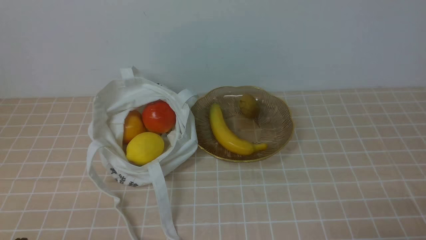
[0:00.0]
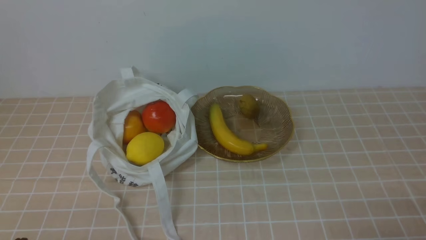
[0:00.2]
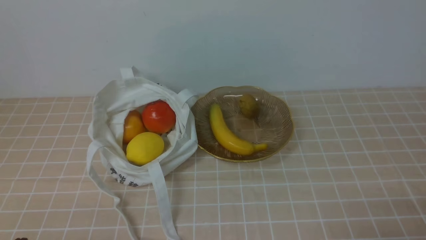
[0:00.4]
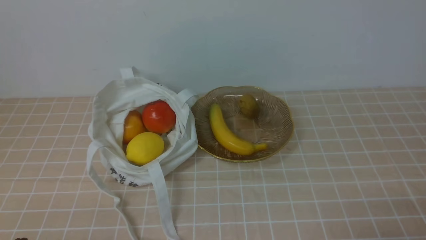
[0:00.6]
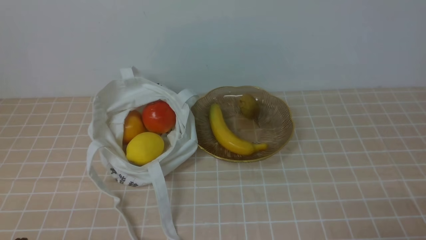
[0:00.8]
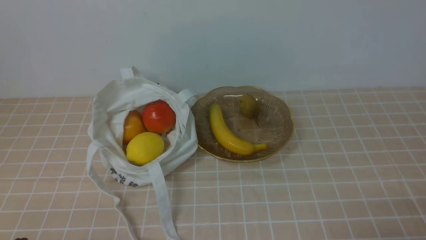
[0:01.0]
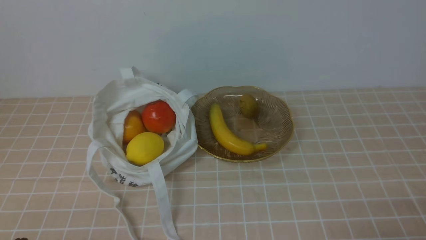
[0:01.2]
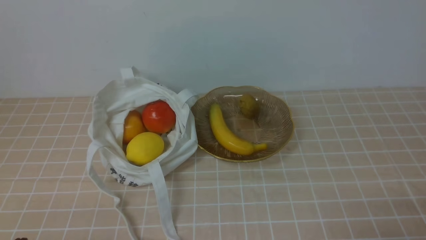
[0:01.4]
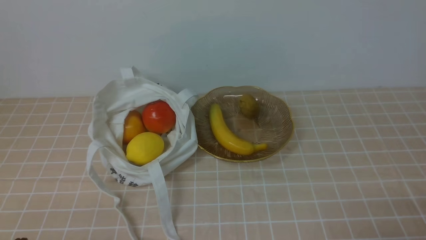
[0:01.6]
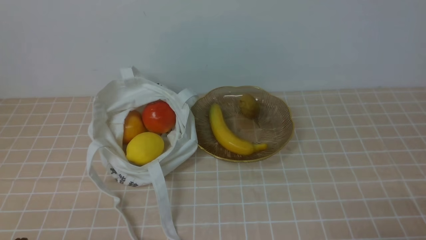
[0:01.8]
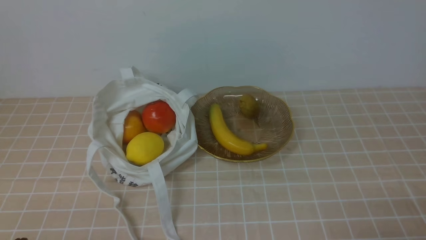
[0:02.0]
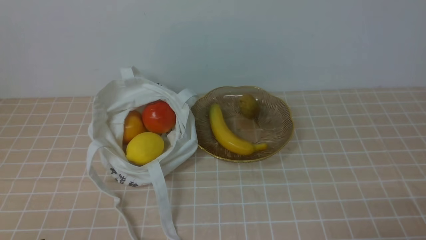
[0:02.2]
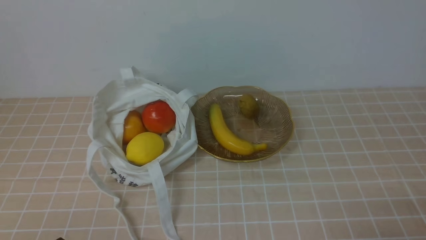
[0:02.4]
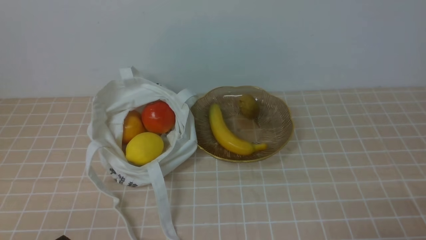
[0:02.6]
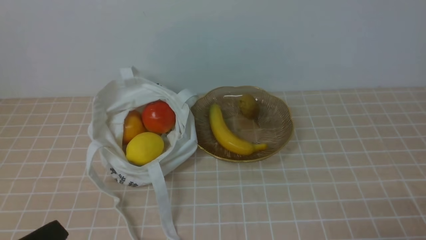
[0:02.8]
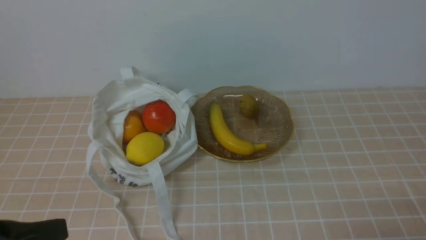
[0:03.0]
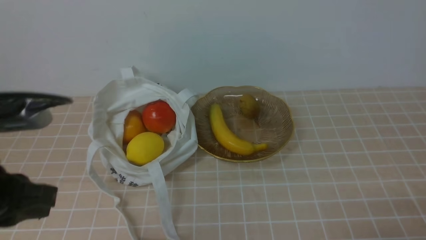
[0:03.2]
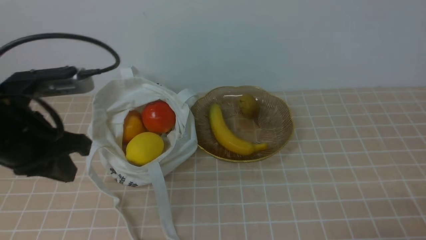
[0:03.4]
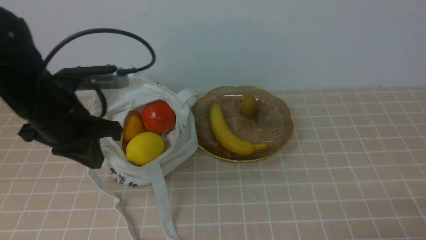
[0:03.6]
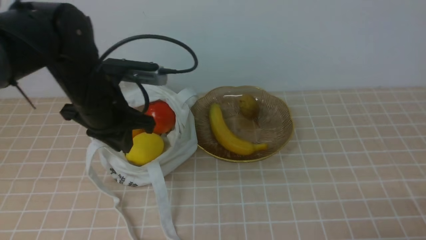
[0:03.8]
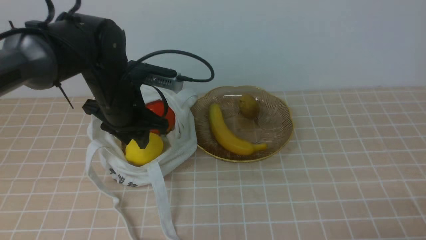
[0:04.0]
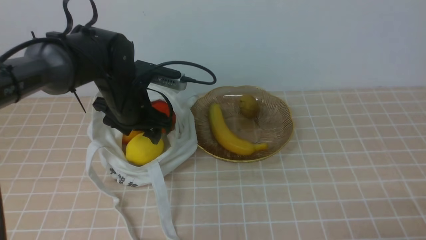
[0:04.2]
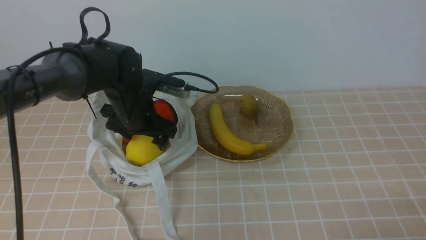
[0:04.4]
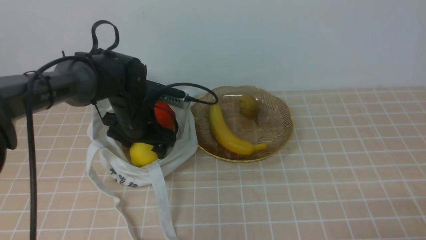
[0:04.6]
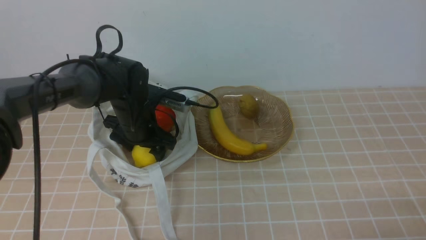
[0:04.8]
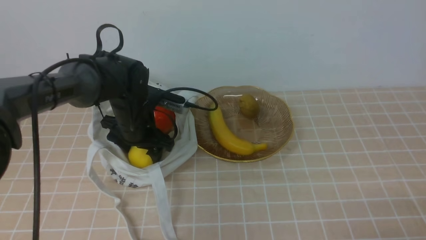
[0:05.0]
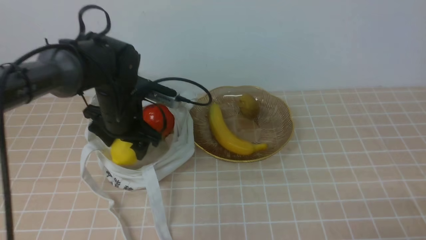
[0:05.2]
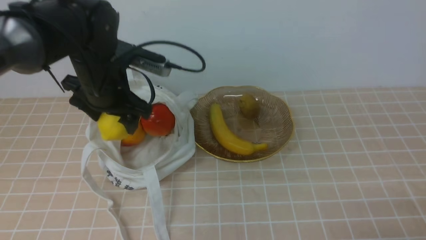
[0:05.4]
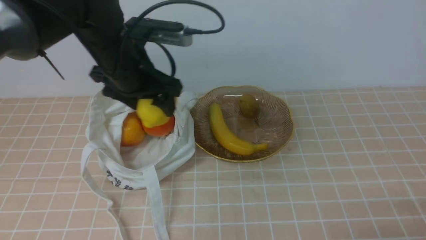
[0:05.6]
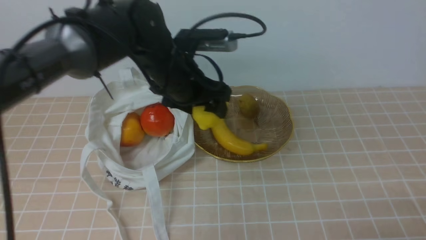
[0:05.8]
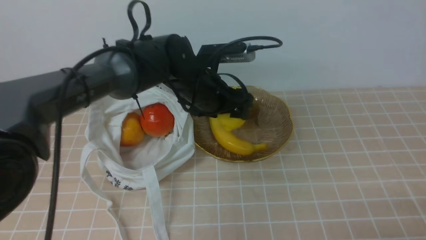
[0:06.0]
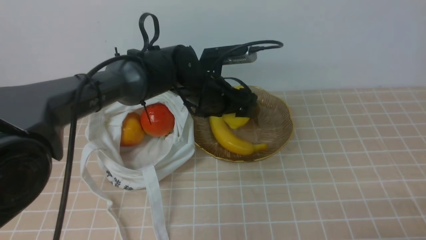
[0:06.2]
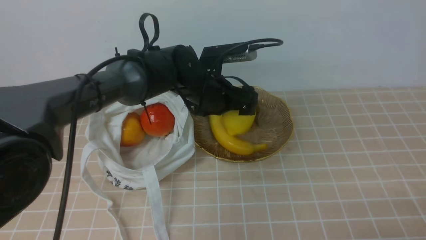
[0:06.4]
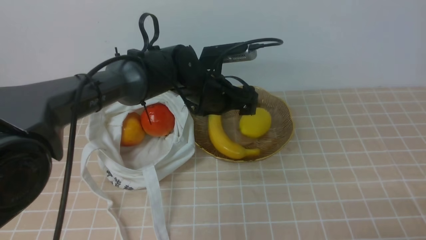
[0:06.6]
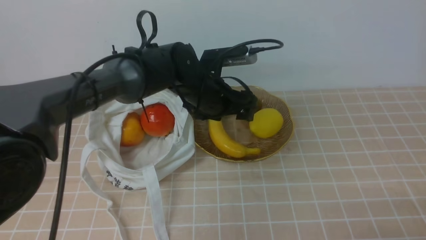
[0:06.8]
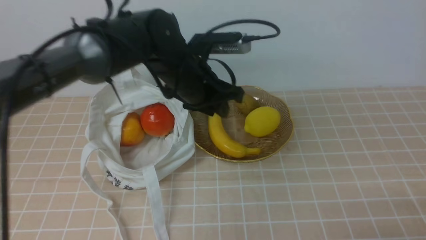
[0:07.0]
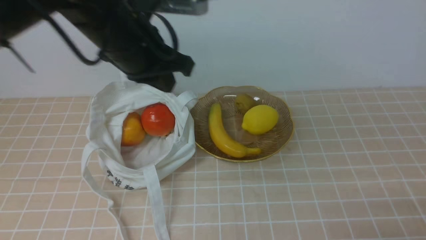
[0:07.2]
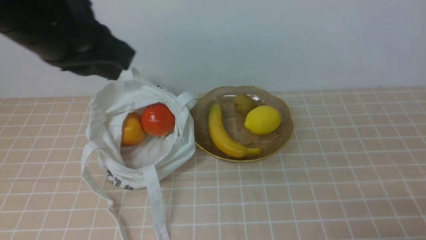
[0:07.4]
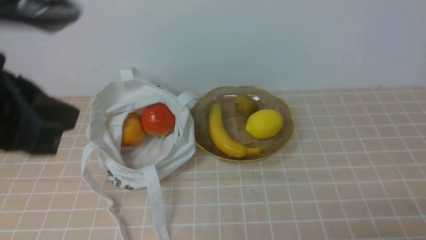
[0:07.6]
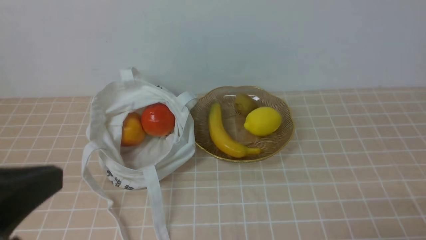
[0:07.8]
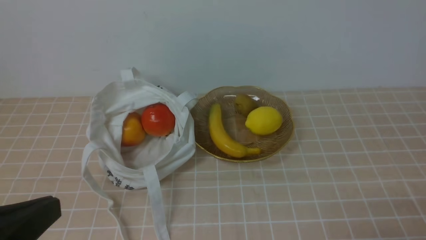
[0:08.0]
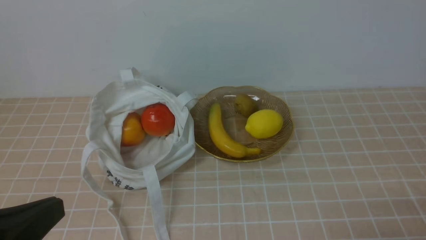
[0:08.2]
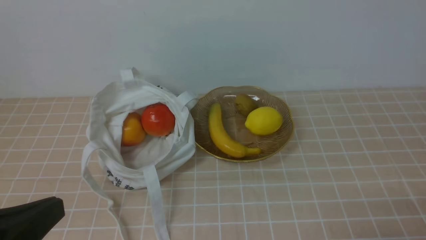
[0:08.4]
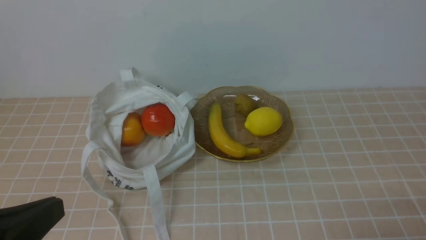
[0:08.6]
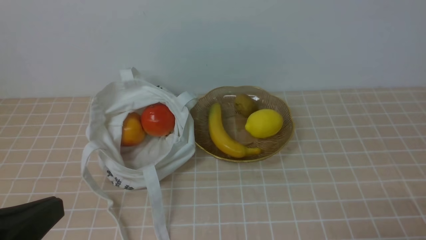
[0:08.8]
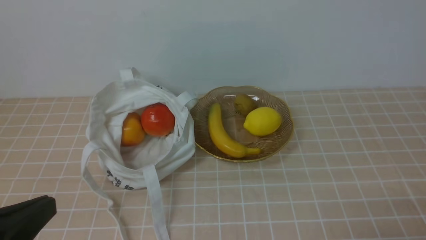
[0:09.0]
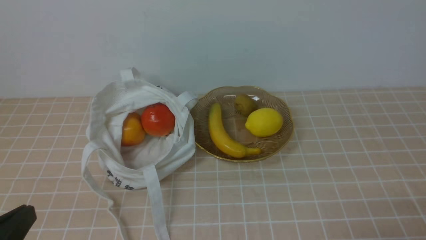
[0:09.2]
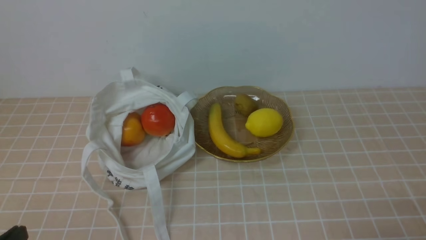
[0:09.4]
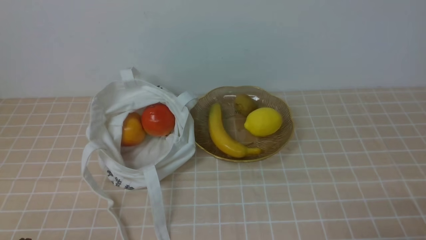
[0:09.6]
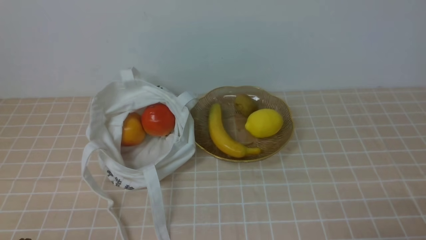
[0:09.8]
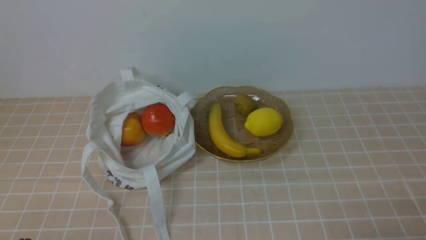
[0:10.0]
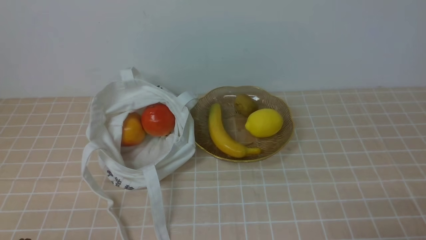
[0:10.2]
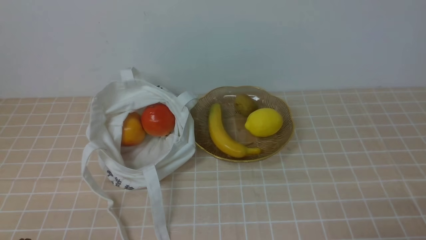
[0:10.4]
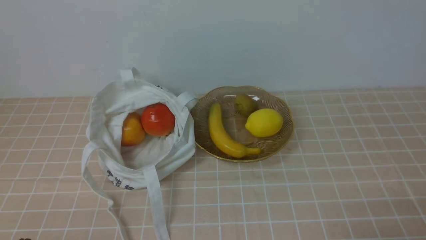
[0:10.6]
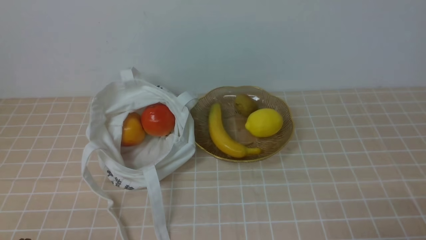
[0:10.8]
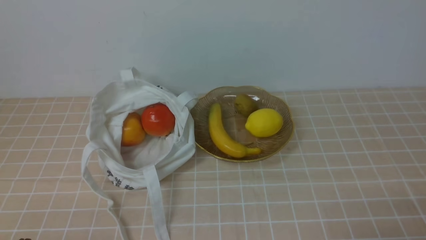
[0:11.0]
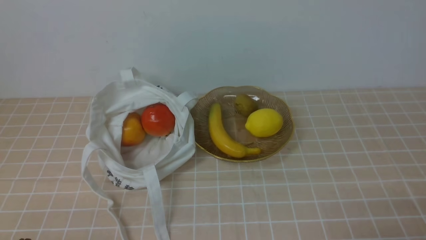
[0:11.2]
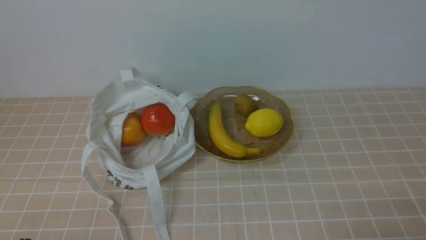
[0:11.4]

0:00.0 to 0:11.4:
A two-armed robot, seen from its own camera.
Step, 0:00.0 to 0:05.0: use the left arm to grab a lemon from the bag.
Step, 0:05.2 to 0:06.6: use the left arm to put the lemon into the empty plate on the right.
0:00.0 to 0:01.4: Both grippers stay put.
0:02.8 to 0:04.2: The left gripper shifts about 35 cm forward, and opens up.
0:04.2 to 0:05.6: The left gripper travels upward by approximately 5 cm.
0:05.6 to 0:07.2: The left gripper heads upward and backward, covering roughly 10 cm, and closes its fingers.
0:07.2 to 0:08.6: The left gripper shifts roughly 30 cm backward and to the left.
0:08.6 to 0:10.0: The left gripper is displaced downward by some 15 cm.
0:10.0 to 0:11.4: The two grippers keep their place.

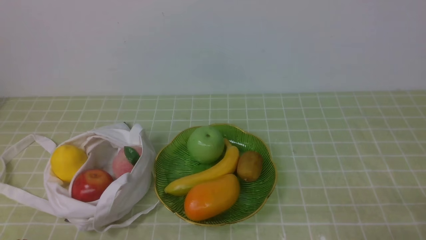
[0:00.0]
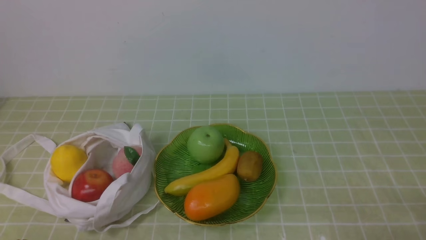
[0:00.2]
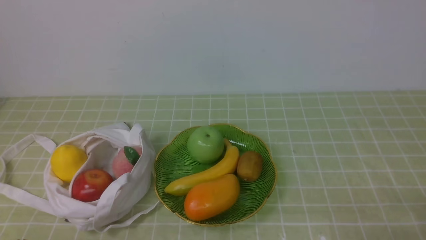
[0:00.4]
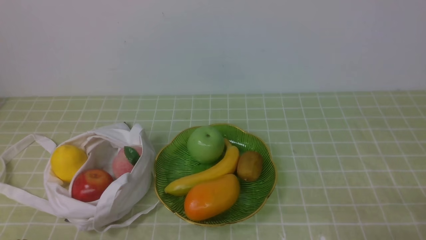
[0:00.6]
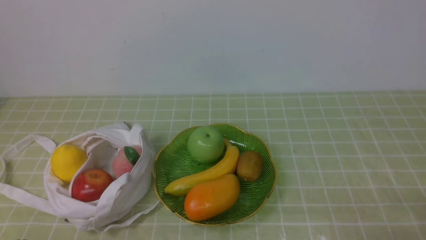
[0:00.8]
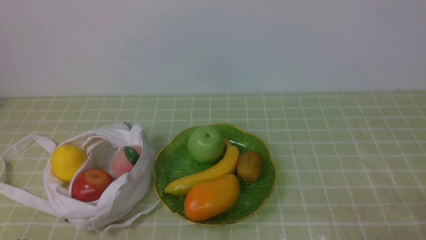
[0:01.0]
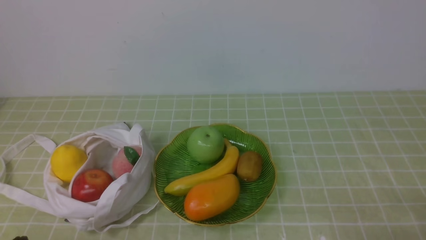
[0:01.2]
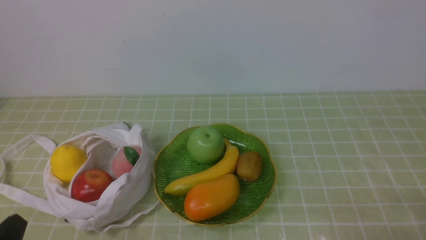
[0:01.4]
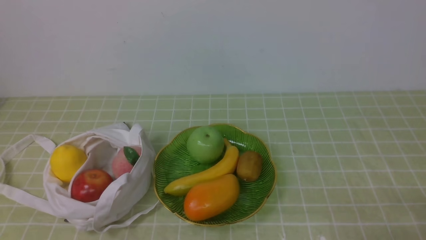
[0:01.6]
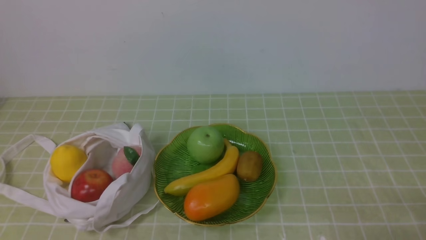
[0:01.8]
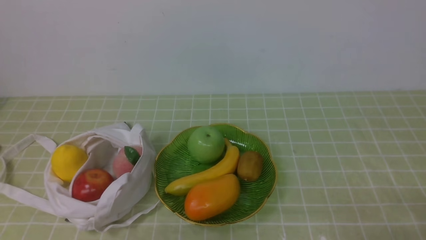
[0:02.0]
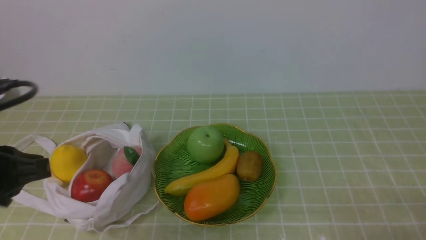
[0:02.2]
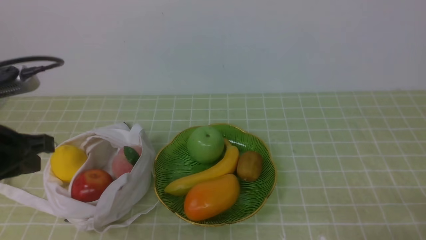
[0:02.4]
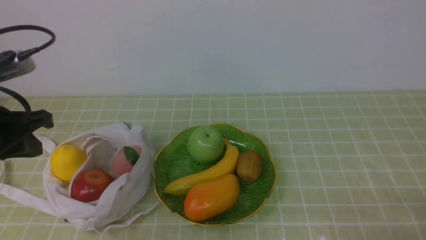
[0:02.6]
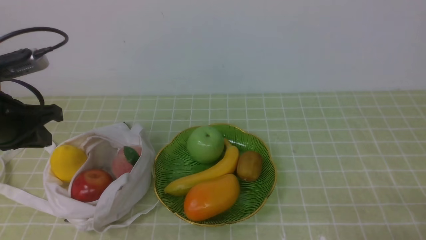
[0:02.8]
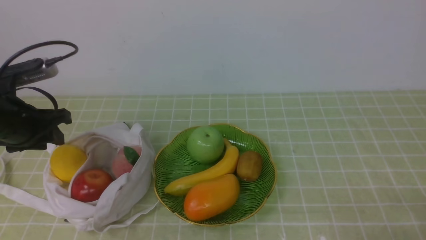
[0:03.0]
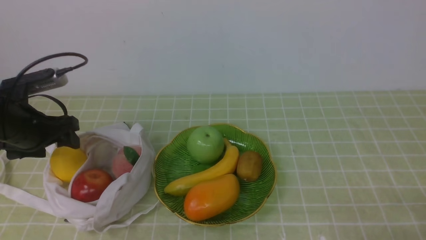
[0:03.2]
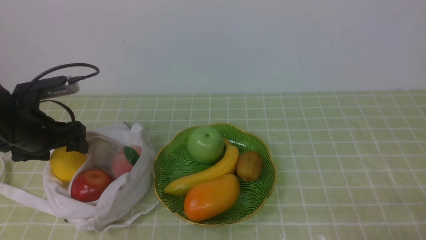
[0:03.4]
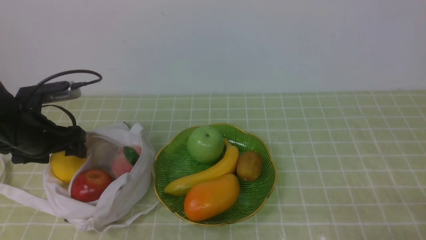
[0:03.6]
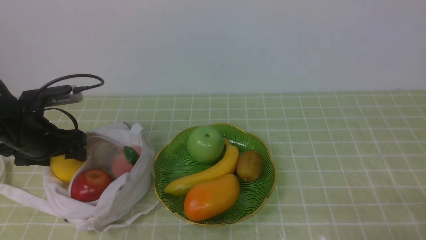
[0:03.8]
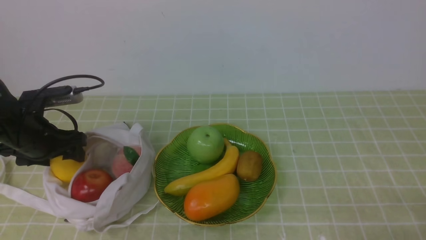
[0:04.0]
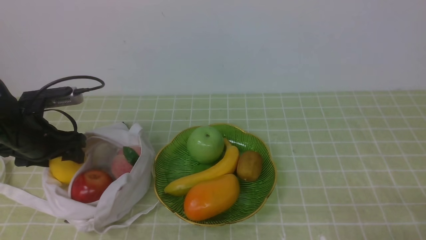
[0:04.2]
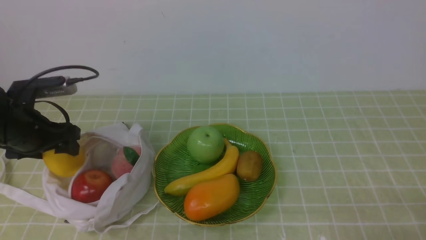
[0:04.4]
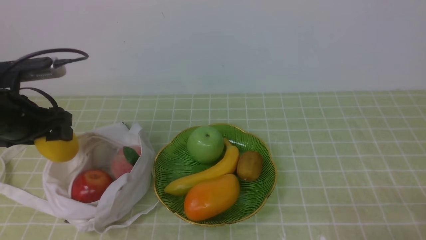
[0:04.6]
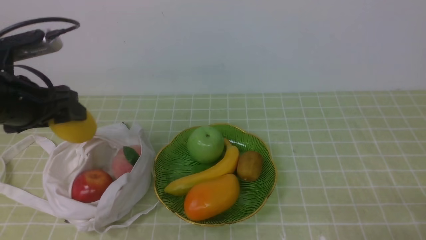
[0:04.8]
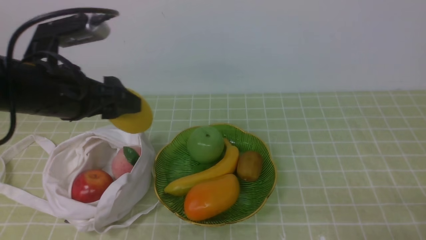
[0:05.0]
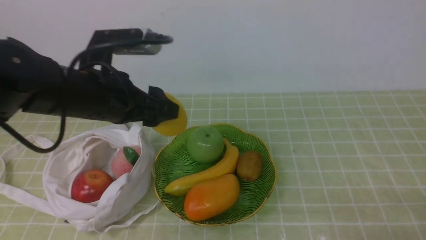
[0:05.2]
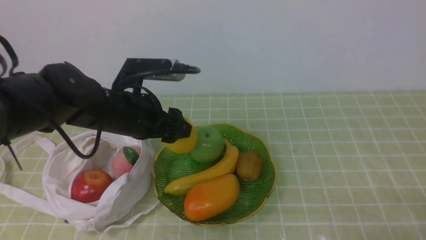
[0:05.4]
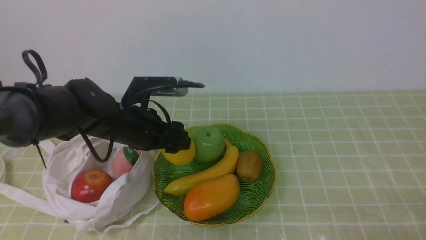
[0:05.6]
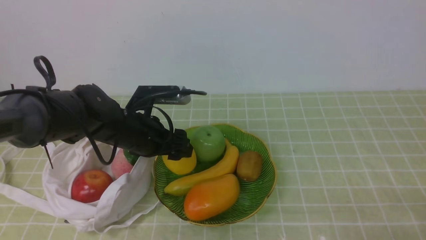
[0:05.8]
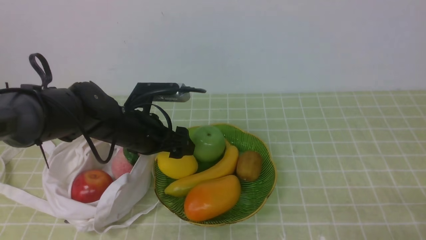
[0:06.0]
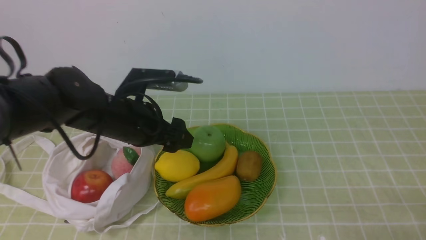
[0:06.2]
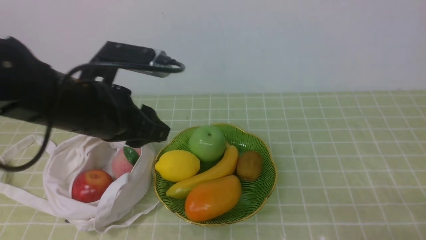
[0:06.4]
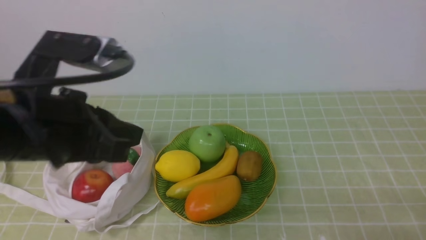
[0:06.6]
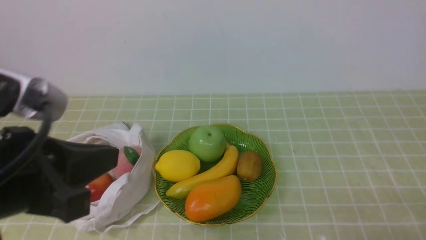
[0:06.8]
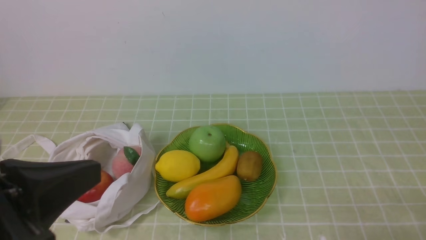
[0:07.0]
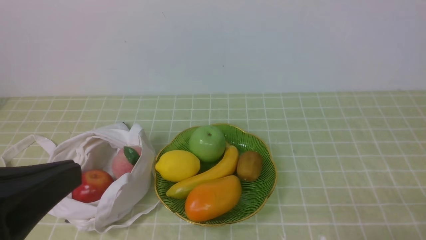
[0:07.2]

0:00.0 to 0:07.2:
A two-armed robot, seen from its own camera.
Step, 0:00.0 to 0:04.2: use the left arm to grab a lemon from the bag.
Step, 0:04.6 to 0:05.8: use the left arm to put the lemon into the empty plate on the right.
0:01.4 to 0:02.8: The left gripper heads forward and upward, covering some 25 cm.
0:02.8 to 0:04.4: The left gripper heads downward and forward, covering approximately 10 cm, and opens its fingers.
0:04.4 to 0:05.8: The left gripper heads to the right, covering some 15 cm.
0:05.8 to 0:07.2: The left gripper moves backward and upward, approximately 30 cm, and closes its fingers.
